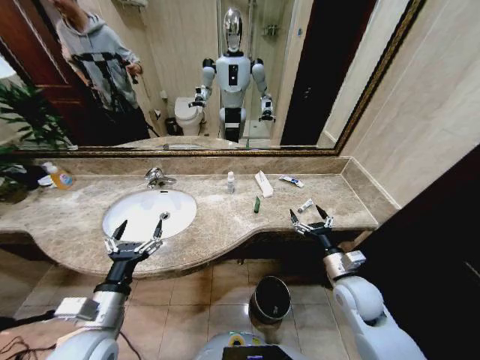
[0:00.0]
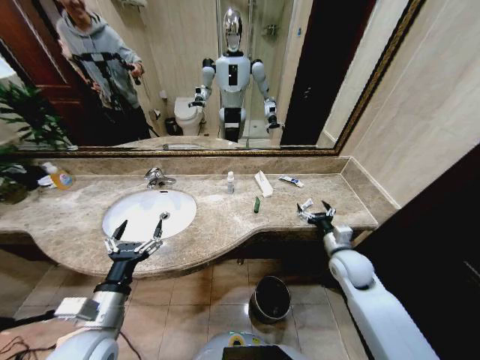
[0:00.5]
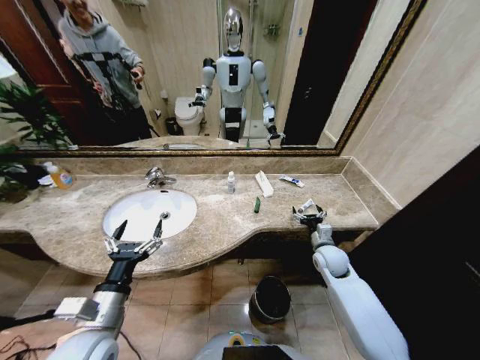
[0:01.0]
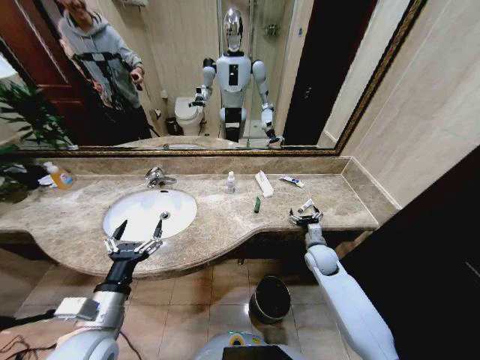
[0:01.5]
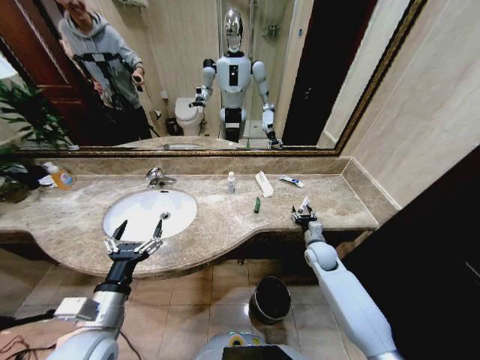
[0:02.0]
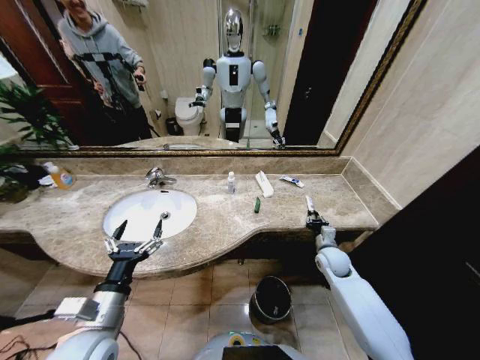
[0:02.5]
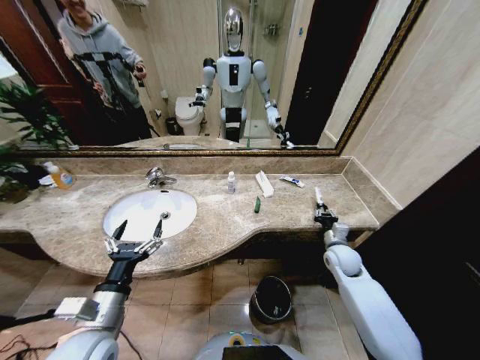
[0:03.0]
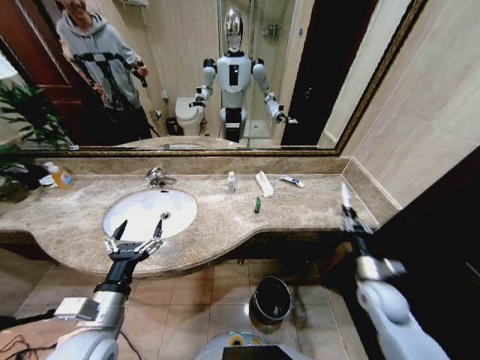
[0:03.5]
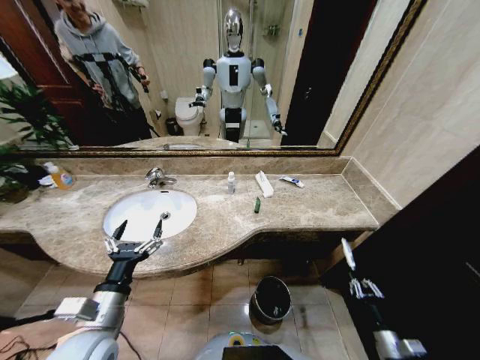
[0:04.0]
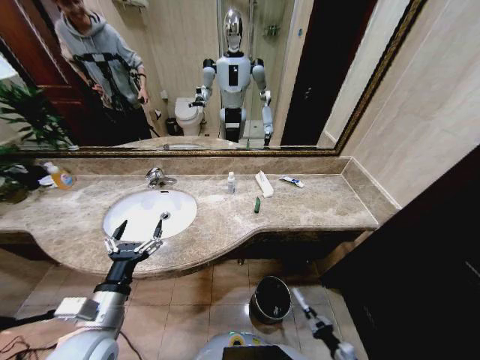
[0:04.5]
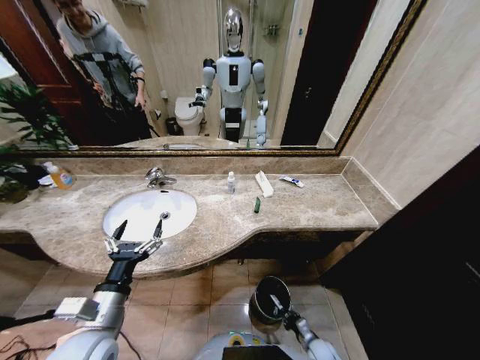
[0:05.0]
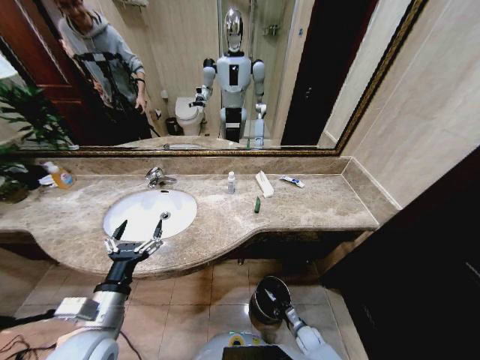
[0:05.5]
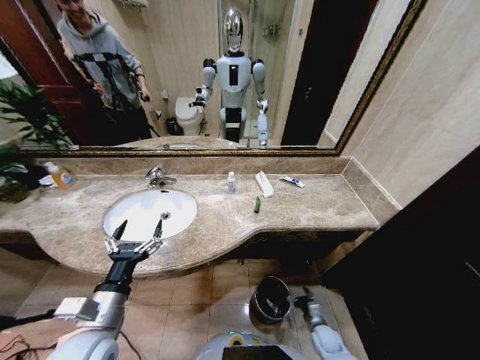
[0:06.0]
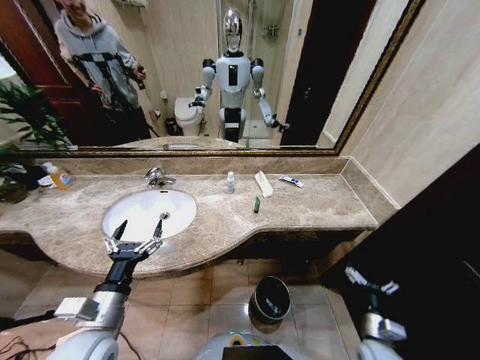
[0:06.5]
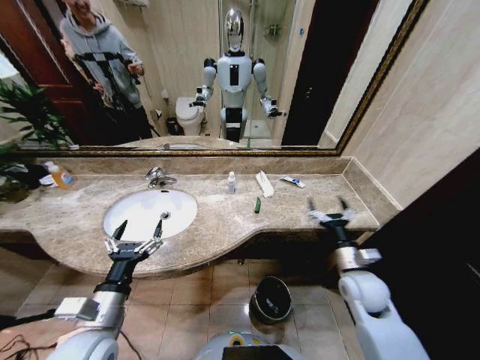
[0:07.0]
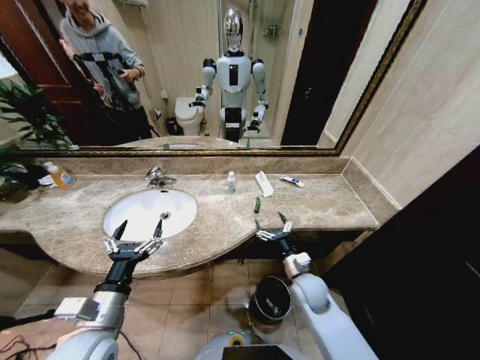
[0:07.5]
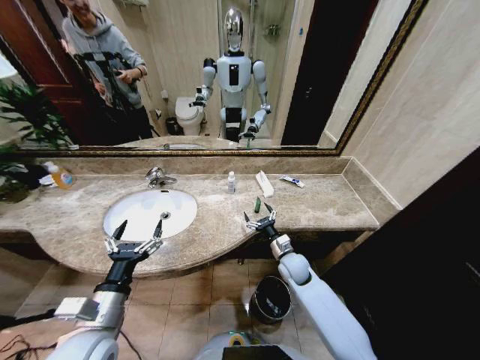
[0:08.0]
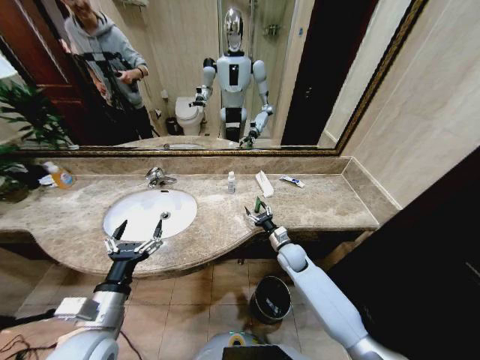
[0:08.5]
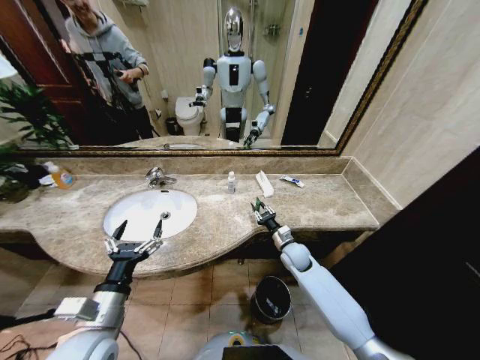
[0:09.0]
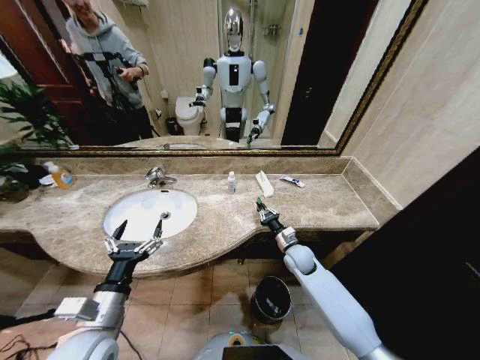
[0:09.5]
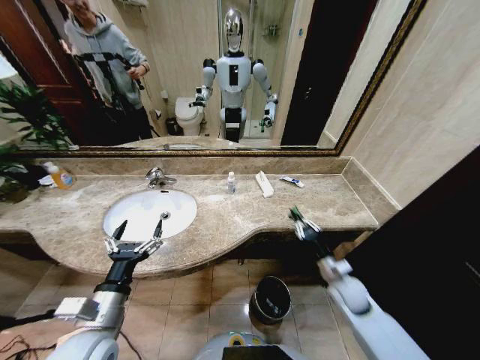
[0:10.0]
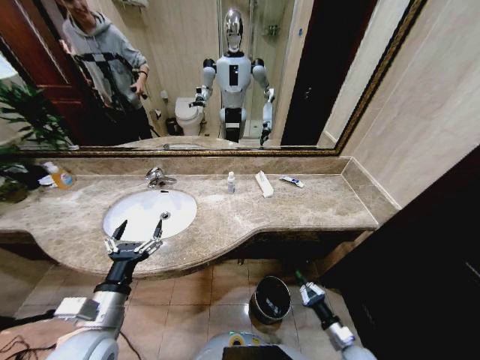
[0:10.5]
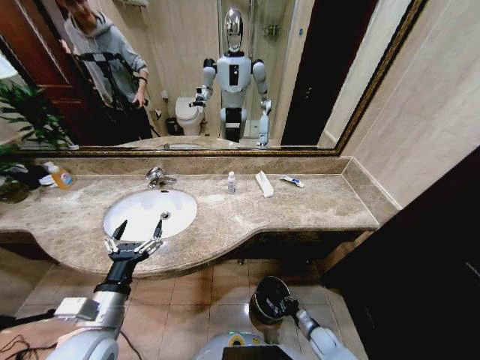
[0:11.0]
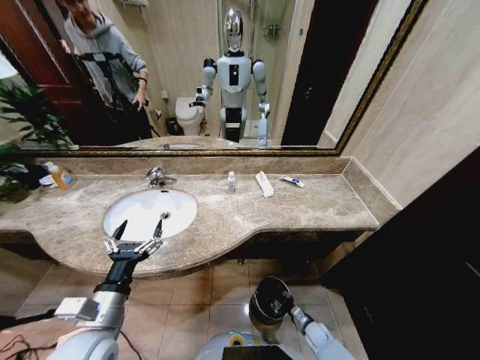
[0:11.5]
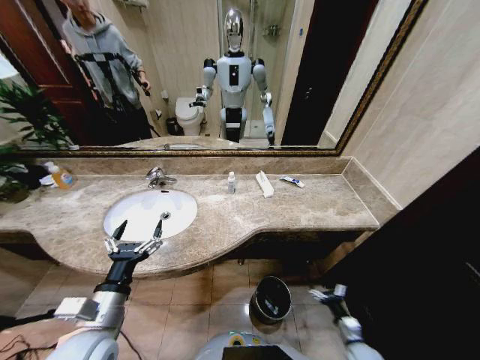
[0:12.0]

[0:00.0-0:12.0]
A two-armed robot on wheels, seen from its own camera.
Task of the whole recording: Pick up the trash from the sink and place it in the trash bin.
0:02.0 to 0:04.0: The right gripper shifts roughly 35 cm backward and to the right, and closes its fingers.
0:04.0 to 0:06.0: The right gripper is displaced downward, to the left and forward by approximately 20 cm, and opens its fingers.
0:06.0 to 0:08.0: The right gripper travels upward, forward and to the left by about 30 cm.
0:08.0 to 0:10.0: The right gripper heads to the right and backward, covering about 15 cm, and closes its fingers.
0:10.0 to 0:12.0: The right gripper goes some 25 cm downward and backward, and opens its fingers.

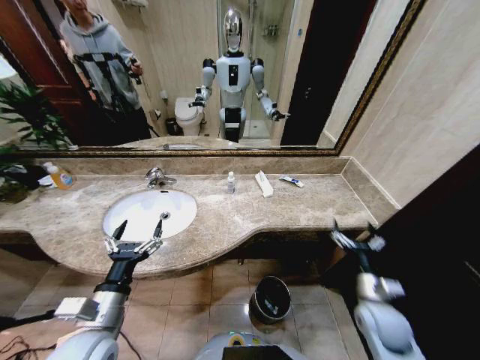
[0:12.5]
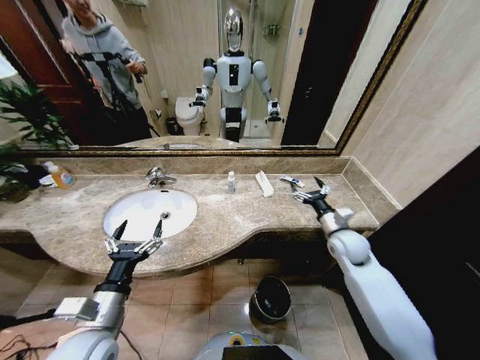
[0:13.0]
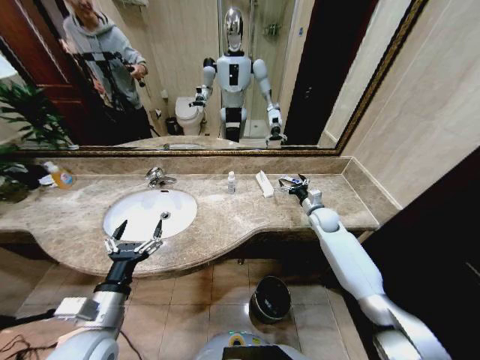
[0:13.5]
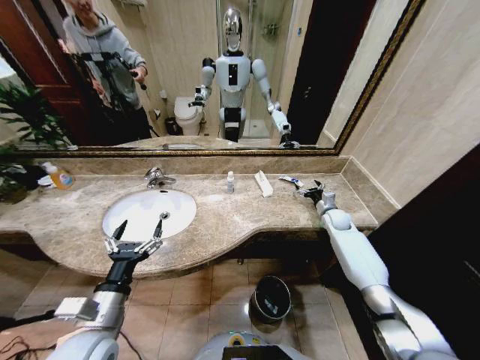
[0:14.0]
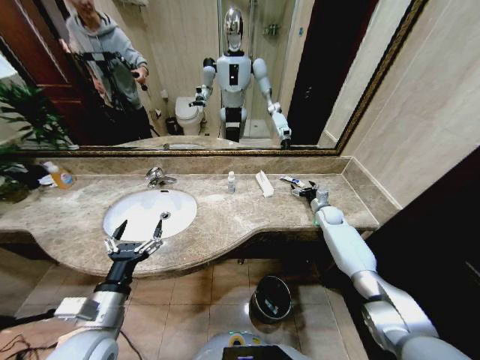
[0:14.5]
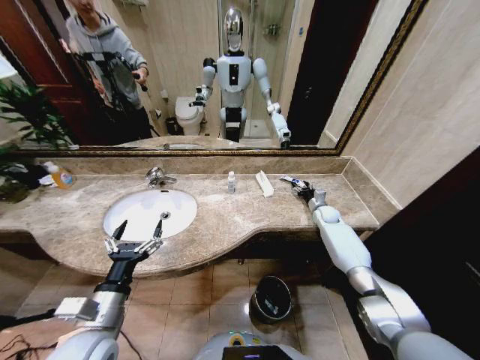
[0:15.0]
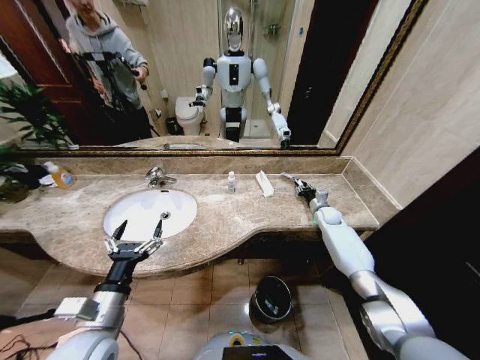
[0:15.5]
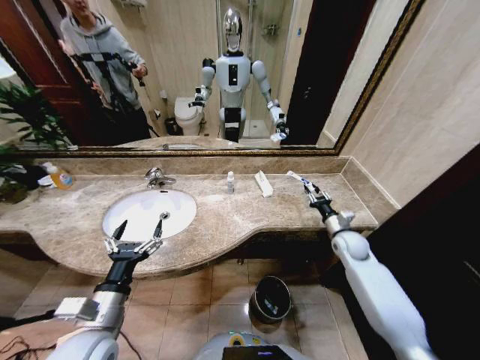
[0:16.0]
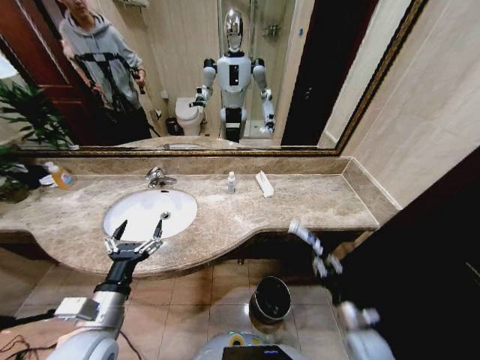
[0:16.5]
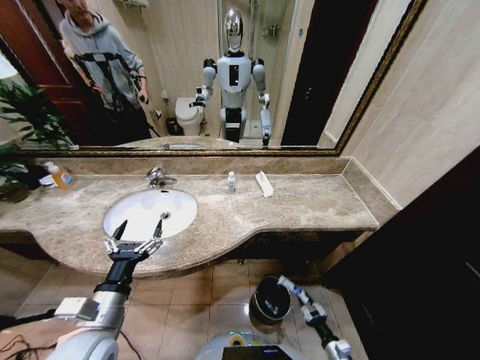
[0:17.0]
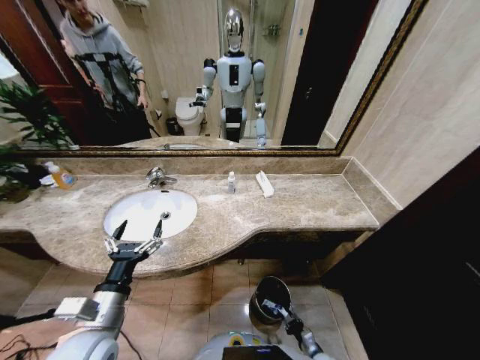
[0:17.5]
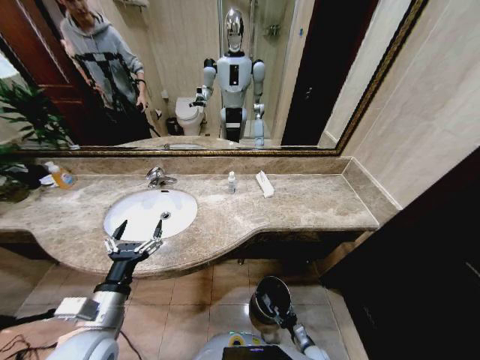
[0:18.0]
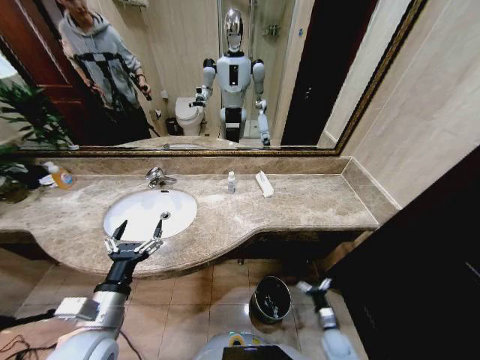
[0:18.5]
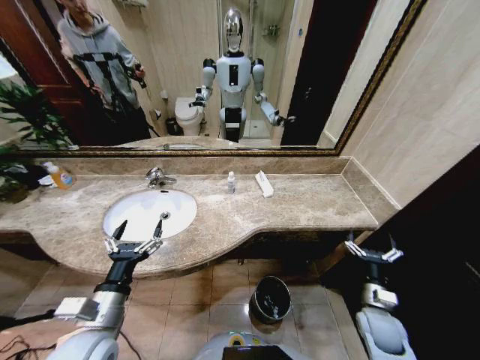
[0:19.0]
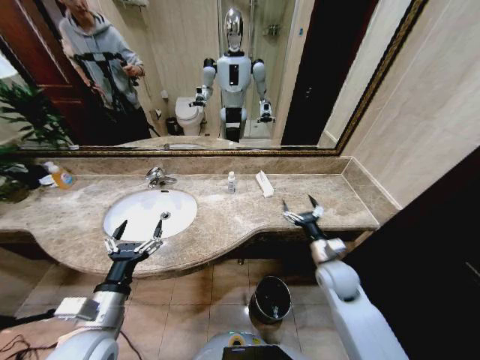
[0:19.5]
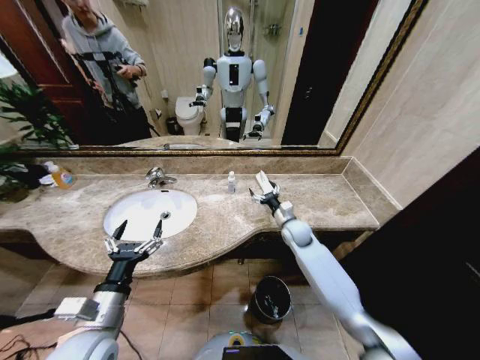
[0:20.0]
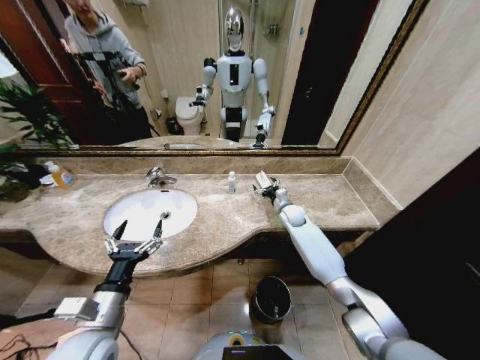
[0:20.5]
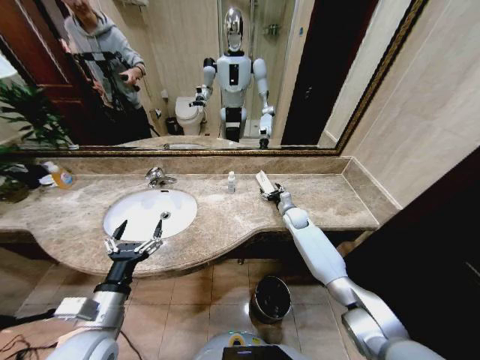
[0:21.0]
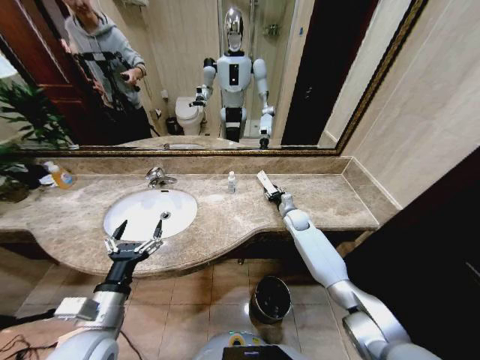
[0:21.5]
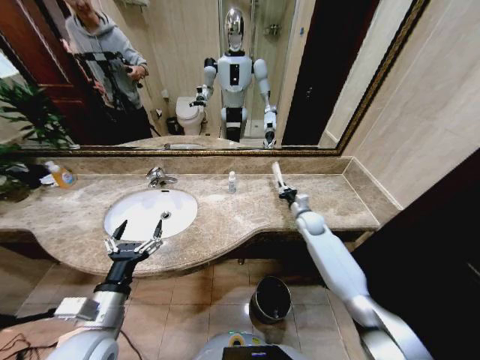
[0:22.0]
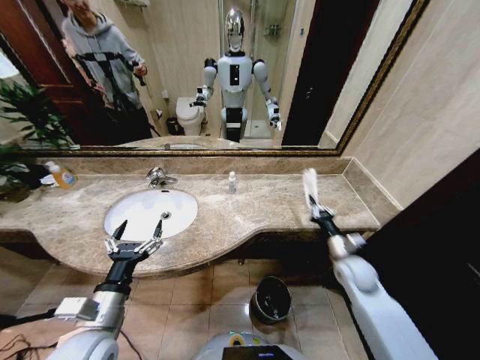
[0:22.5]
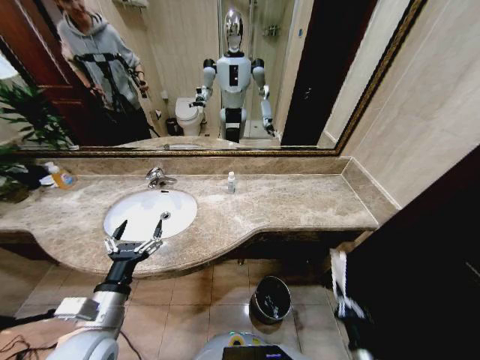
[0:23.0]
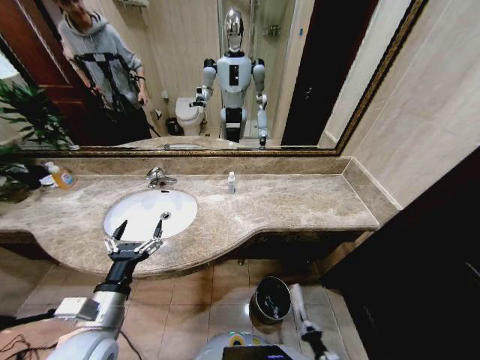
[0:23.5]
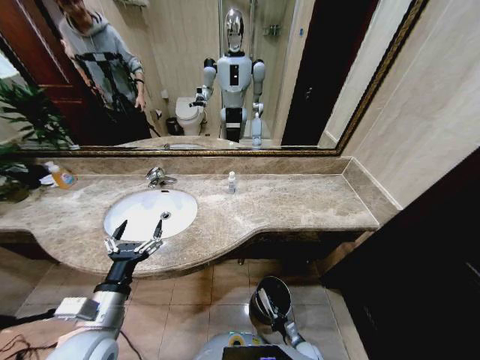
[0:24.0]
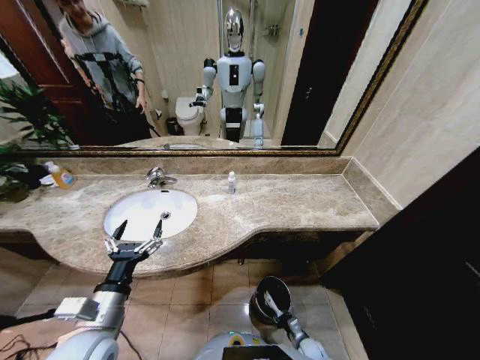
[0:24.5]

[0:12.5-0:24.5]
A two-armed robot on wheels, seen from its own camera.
Task of the whole recording: Pick up the trash from the sink and place it in the trash bin.
0:12.5 to 0:14.5: The right gripper travels forward by approximately 35 cm.
0:14.5 to 0:16.5: The right gripper travels backward by about 35 cm, and closes up.
0:16.5 to 0:18.5: The right gripper moves downward, roughly 20 cm, and opens up.
0:18.5 to 0:20.5: The right gripper shifts approximately 50 cm forward and upward.
0:20.5 to 0:22.5: The right gripper goes roughly 25 cm backward and to the right, and closes.
0:22.5 to 0:24.5: The right gripper heads downward and backward, covering approximately 40 cm.

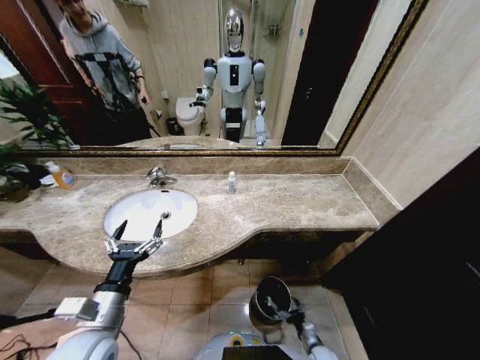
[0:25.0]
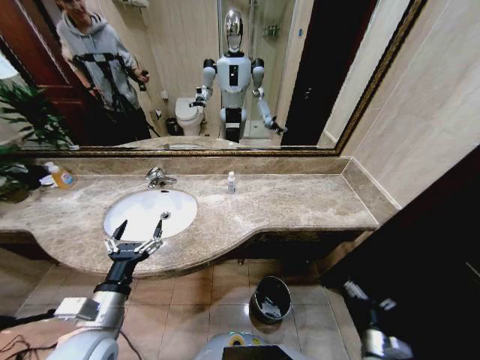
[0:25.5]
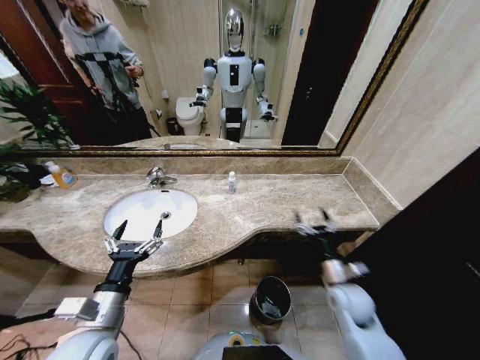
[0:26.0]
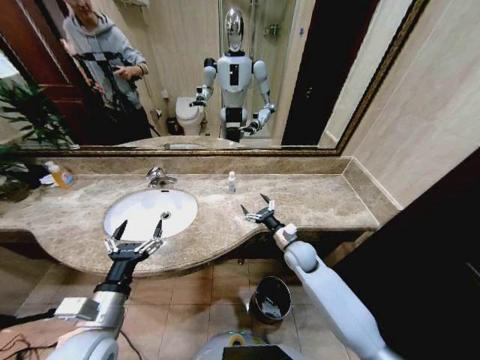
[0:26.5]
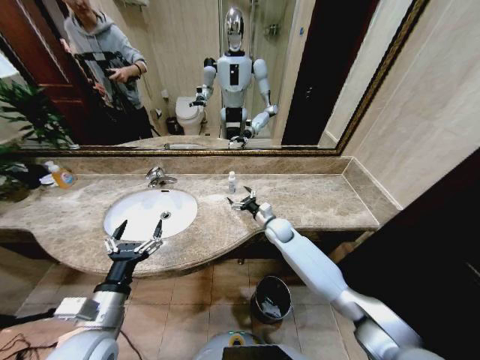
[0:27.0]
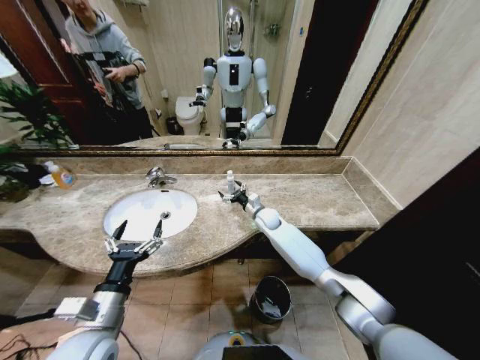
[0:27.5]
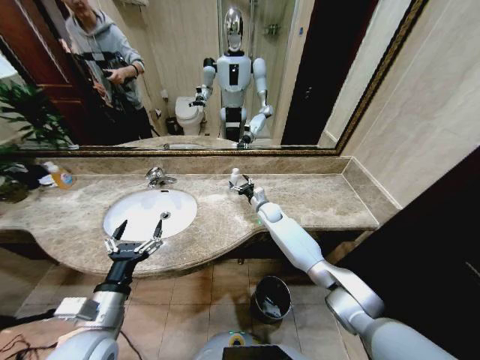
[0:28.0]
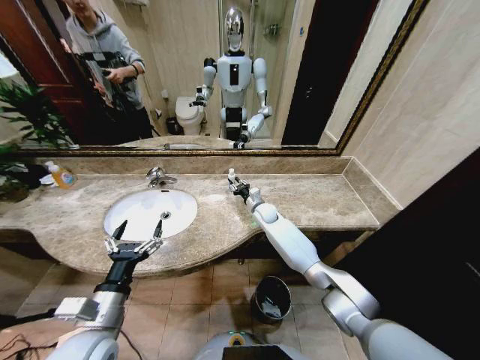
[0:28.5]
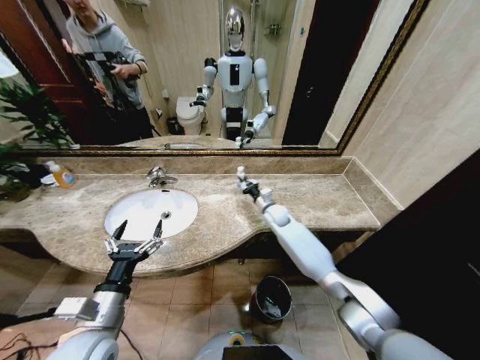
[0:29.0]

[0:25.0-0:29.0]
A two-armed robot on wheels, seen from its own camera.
Task of the whole recording: Pick up the trash from the sink and place it in the trash bin.
0:25.0 to 0:27.0: The right gripper goes some 50 cm forward, upward and to the left.
0:27.0 to 0:29.0: The right gripper moves forward, some 5 cm, and closes.
